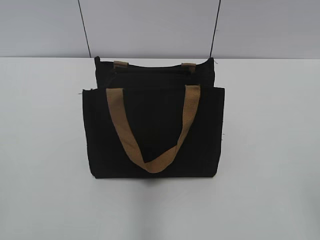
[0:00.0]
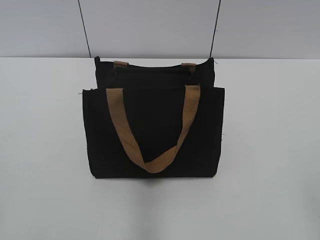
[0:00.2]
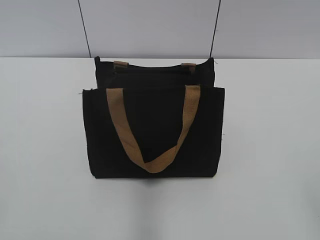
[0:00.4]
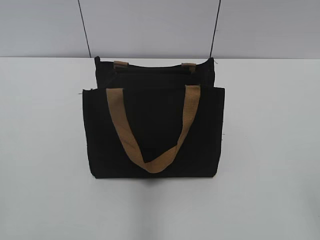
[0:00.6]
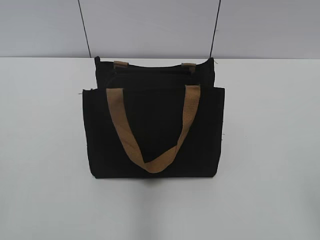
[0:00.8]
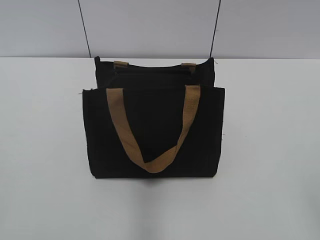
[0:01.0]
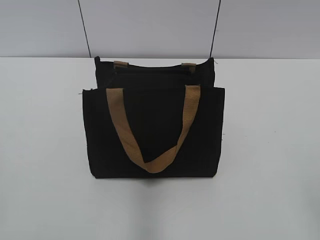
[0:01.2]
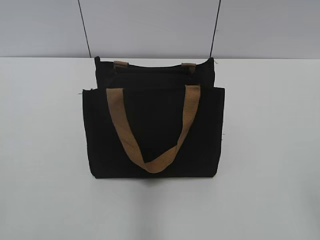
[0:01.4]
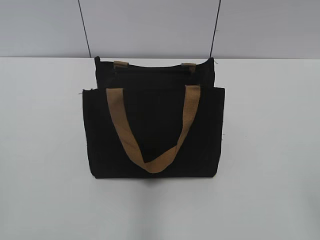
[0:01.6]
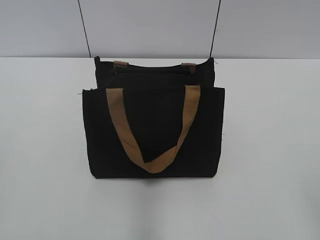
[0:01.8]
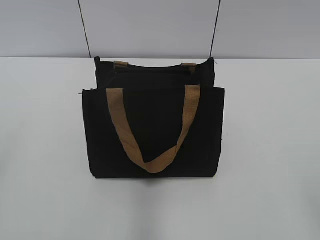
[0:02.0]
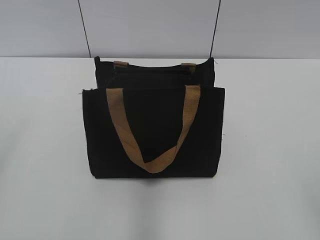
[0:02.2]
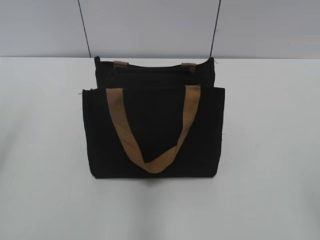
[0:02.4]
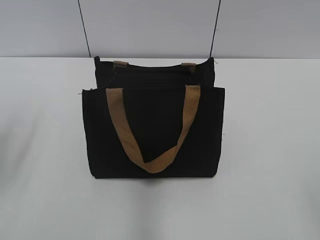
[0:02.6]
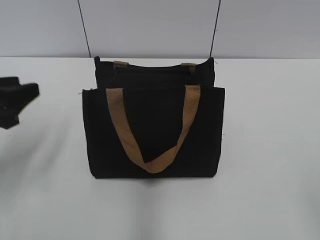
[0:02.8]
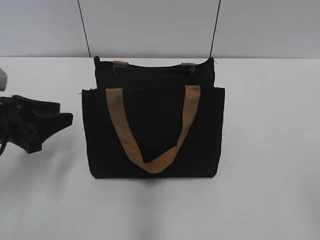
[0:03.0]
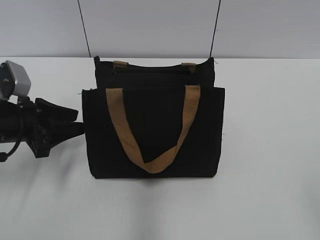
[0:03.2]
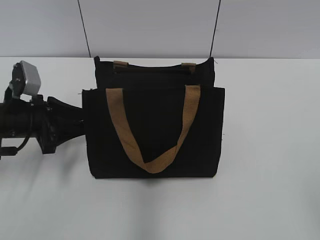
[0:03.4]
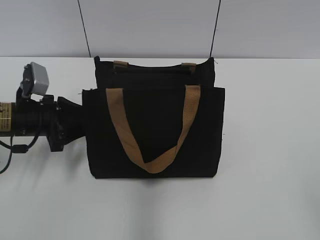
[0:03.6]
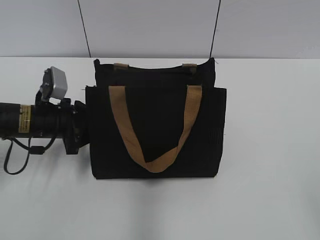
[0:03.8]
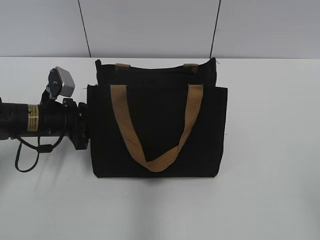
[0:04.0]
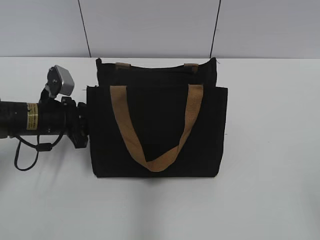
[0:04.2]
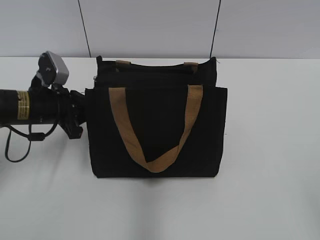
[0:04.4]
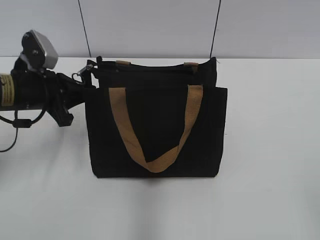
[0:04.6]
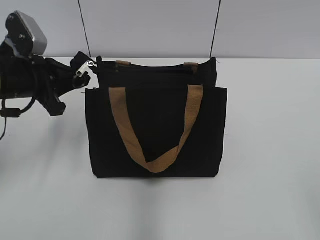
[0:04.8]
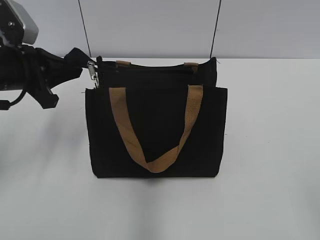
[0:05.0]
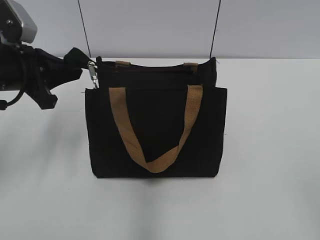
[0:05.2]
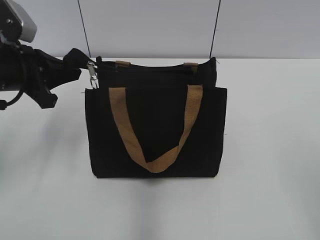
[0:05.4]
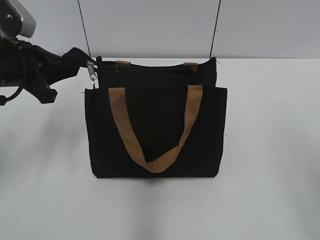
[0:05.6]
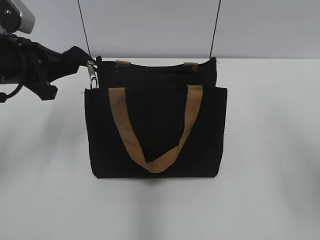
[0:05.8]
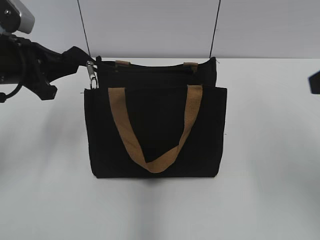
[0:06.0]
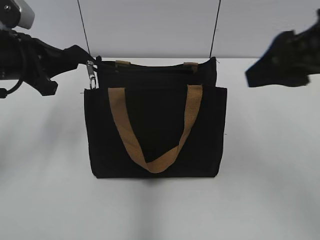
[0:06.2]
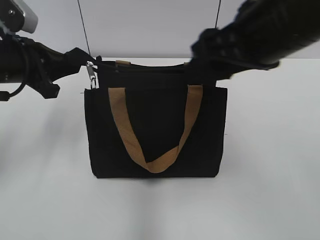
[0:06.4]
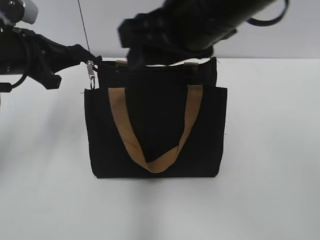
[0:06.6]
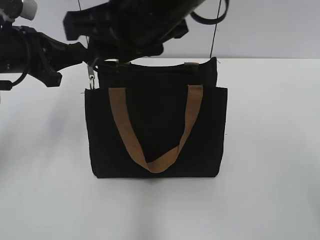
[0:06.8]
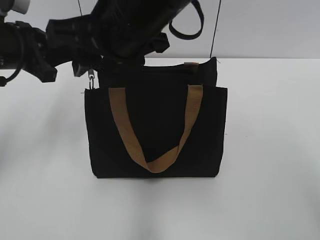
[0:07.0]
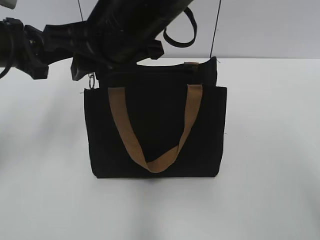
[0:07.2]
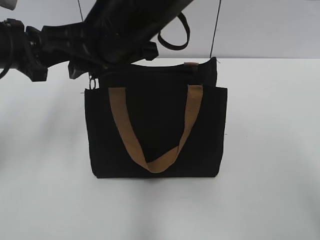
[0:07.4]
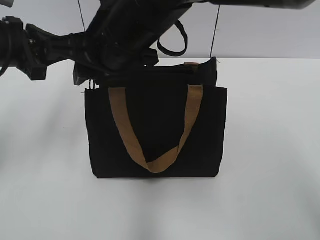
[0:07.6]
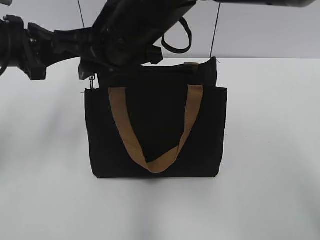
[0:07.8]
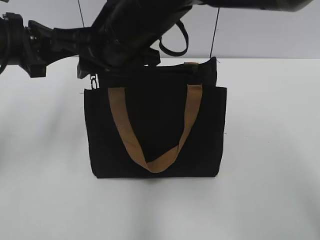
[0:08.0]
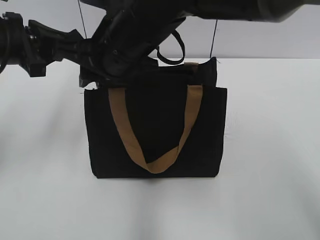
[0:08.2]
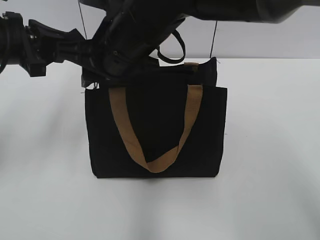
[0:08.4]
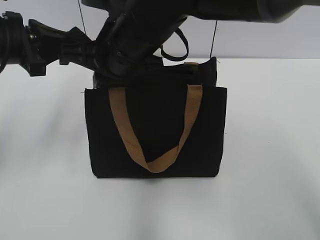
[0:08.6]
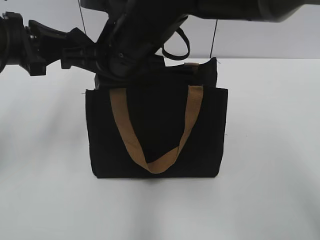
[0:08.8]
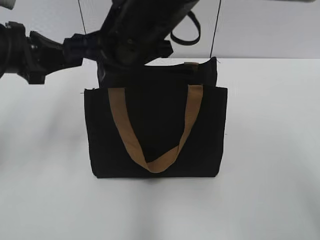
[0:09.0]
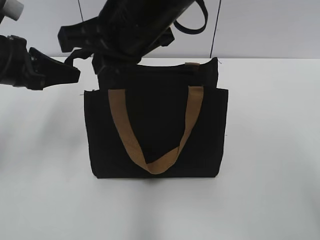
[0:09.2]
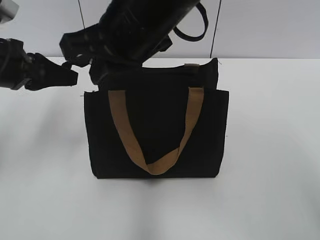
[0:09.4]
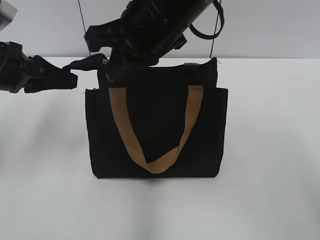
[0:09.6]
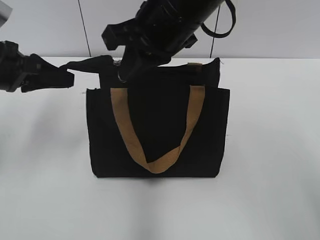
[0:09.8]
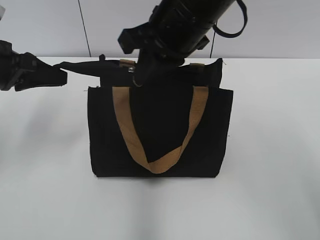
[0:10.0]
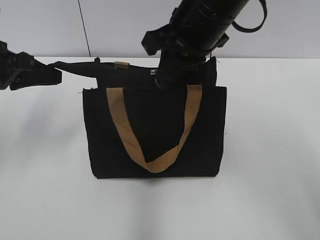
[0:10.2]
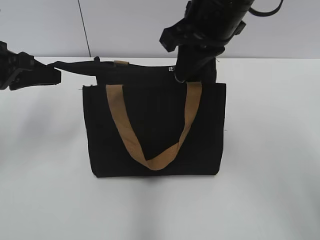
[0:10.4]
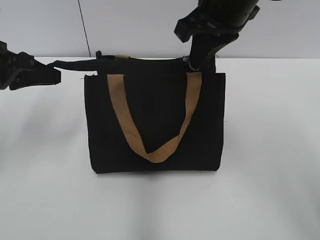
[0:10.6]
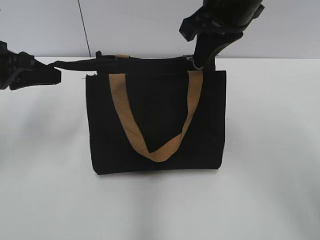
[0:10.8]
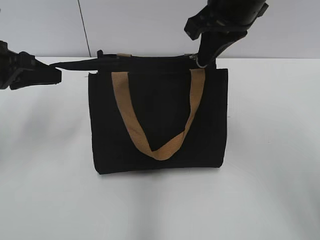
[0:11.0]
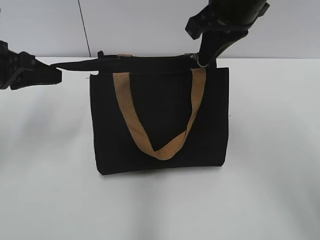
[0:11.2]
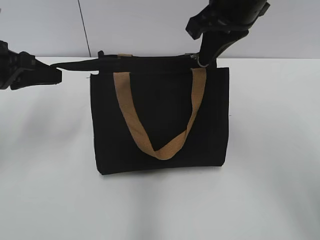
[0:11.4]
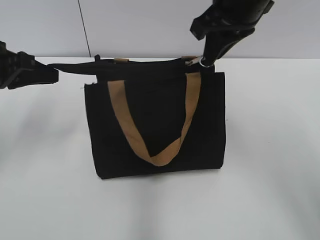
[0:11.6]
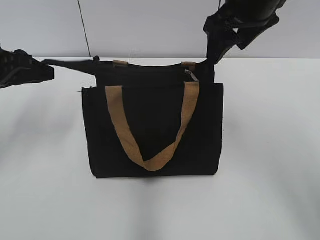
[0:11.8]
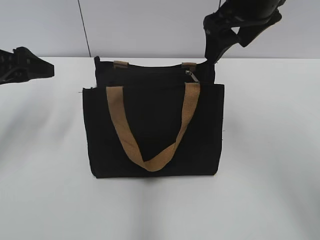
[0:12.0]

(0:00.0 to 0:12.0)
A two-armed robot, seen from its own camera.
Step, 0:00.0 - 0:11.6: Zip up the bag with your right hand.
0:01.6 - 0:03.0: The left gripper shifts about 30 cm forward and downward, and opens, then closes once more.
0:03.0 - 0:04.4: The left gripper goes approximately 10 cm forward and to the right, and closes its fingers.
0:04.4 - 0:06.0: The right gripper travels forward by about 20 cm. Meanwhile the left gripper travels upward by some 10 cm.
0:06.0 - 0:07.6: The right gripper travels to the left by about 30 cm, and closes up.
0:07.6 - 0:09.0: The right gripper closes its fingers.
0:09.0 - 0:10.4: The right gripper travels to the right by about 10 cm.
0:10.4 - 0:12.0: The right gripper is displaced to the right by about 5 cm, and opens. The left gripper opens its fingers.

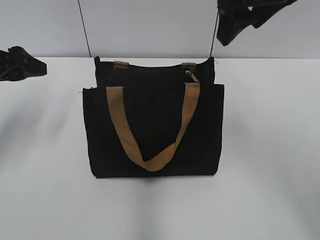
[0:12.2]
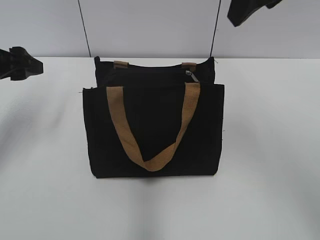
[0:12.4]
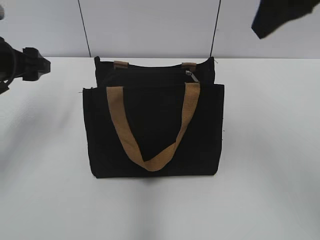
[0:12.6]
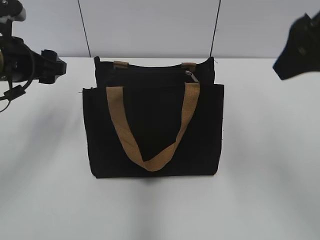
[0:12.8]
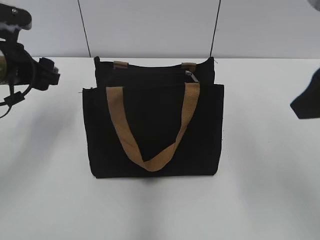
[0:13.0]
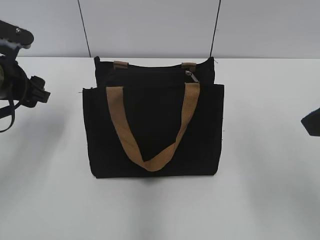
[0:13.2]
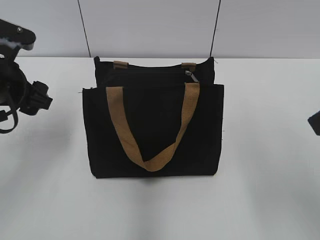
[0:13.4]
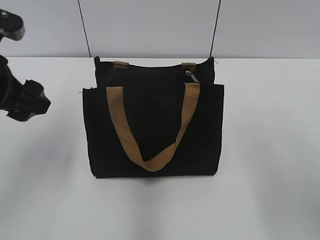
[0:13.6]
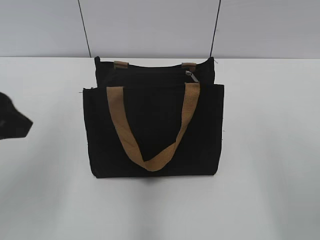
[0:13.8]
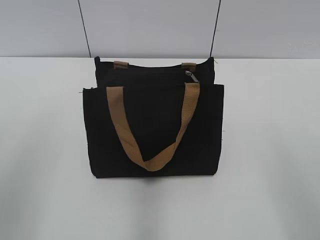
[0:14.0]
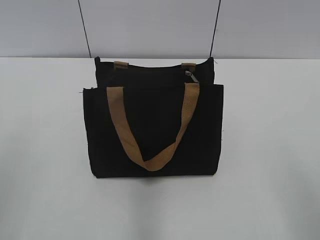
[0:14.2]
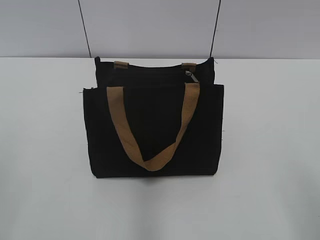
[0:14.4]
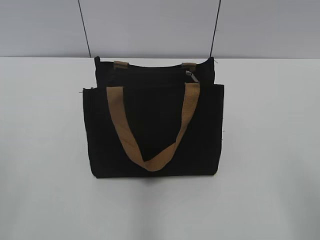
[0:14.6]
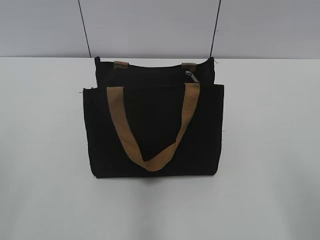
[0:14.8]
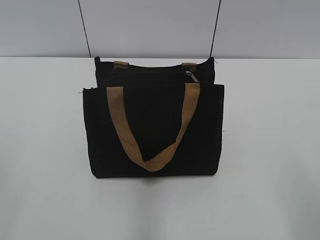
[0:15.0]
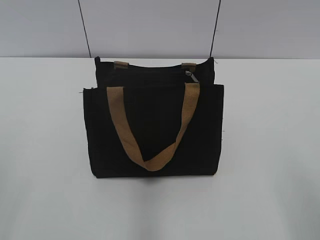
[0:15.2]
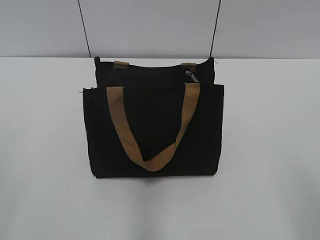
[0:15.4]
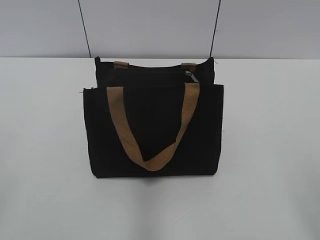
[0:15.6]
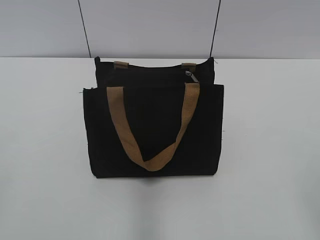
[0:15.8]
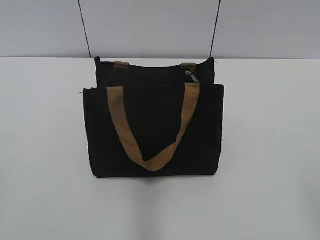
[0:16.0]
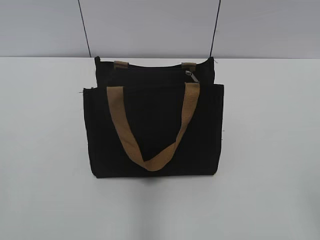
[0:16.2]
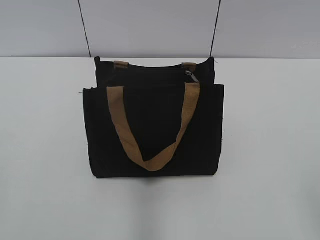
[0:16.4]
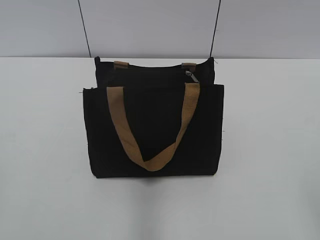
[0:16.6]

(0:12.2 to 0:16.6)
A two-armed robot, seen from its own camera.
0:12.2 - 0:13.6: The left gripper heads to the right and backward, covering about 10 cm, while the right gripper heads backward and to the right, covering about 20 cm.
0:13.6 - 0:15.2: The left gripper heads backward, covering about 20 cm.

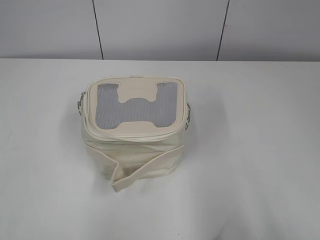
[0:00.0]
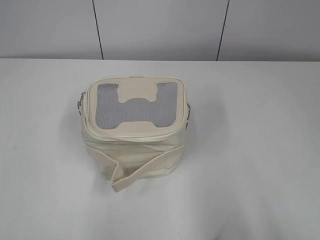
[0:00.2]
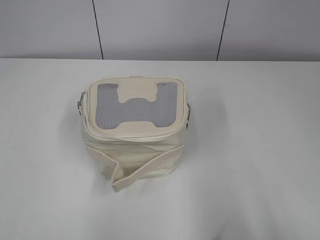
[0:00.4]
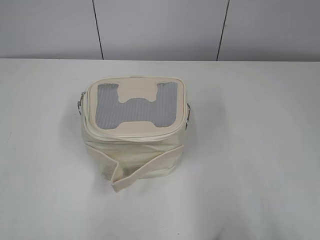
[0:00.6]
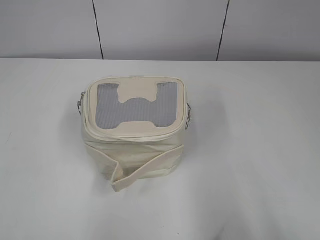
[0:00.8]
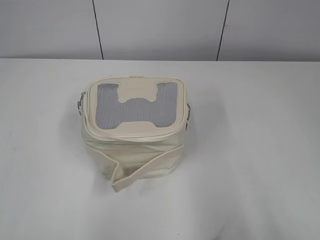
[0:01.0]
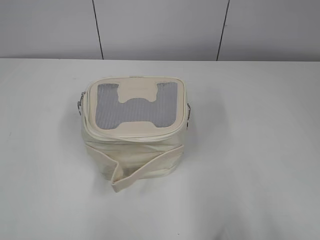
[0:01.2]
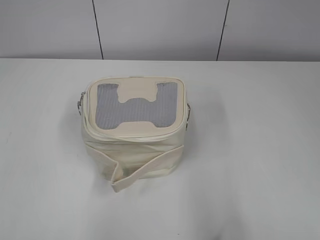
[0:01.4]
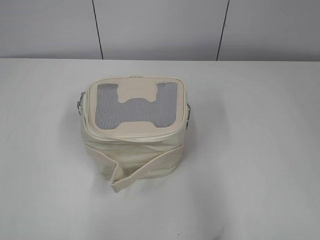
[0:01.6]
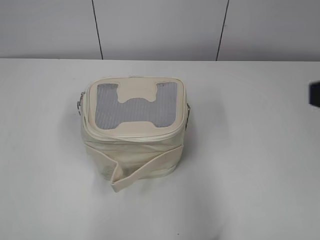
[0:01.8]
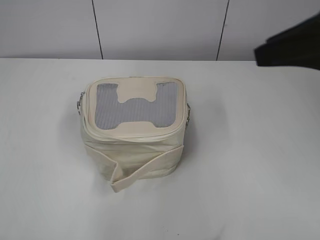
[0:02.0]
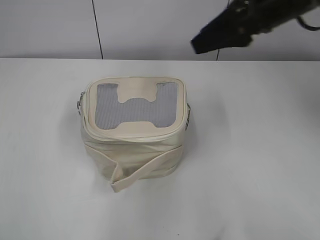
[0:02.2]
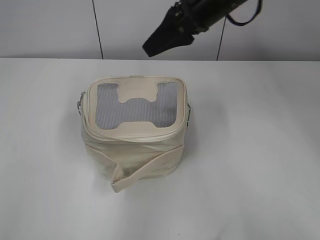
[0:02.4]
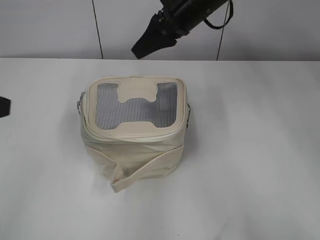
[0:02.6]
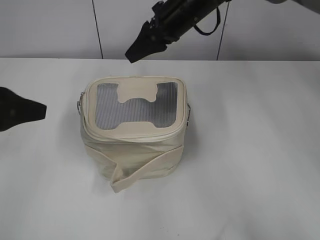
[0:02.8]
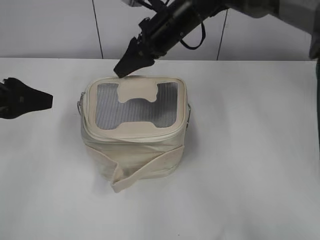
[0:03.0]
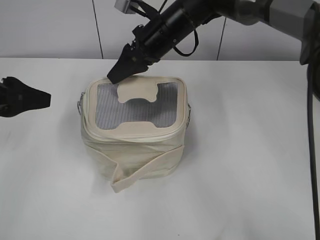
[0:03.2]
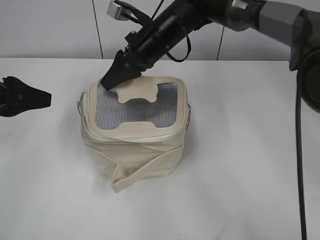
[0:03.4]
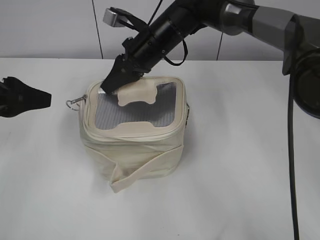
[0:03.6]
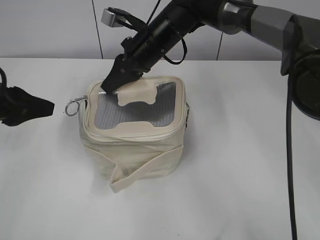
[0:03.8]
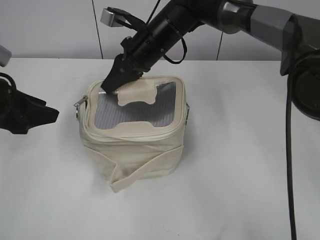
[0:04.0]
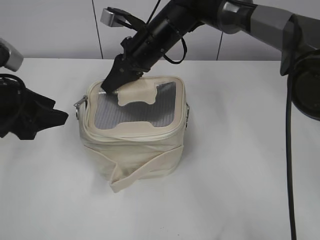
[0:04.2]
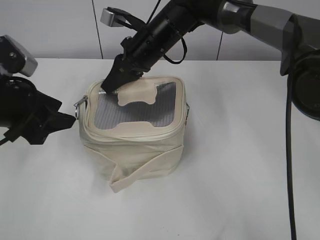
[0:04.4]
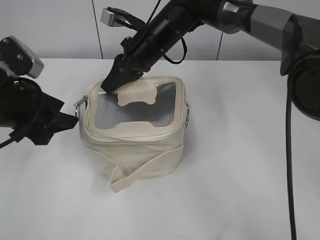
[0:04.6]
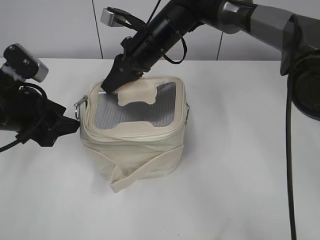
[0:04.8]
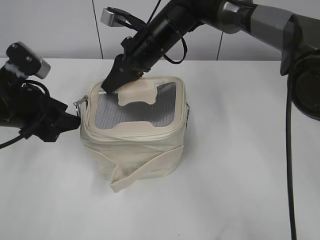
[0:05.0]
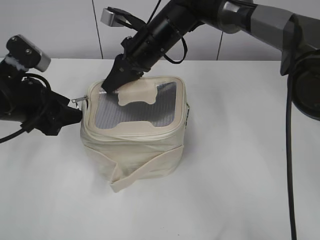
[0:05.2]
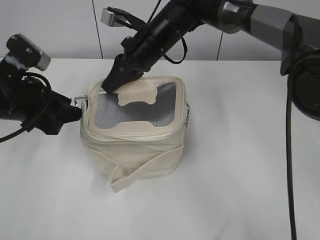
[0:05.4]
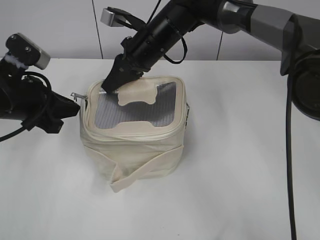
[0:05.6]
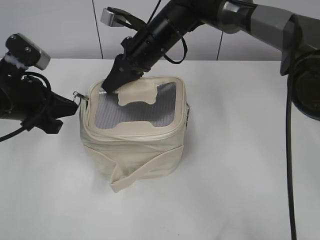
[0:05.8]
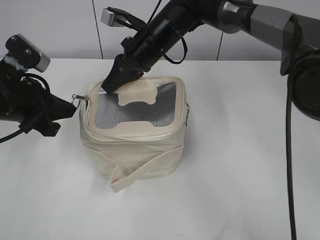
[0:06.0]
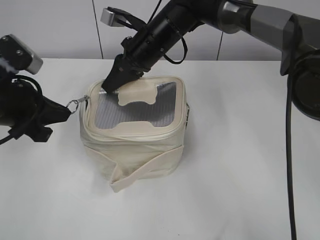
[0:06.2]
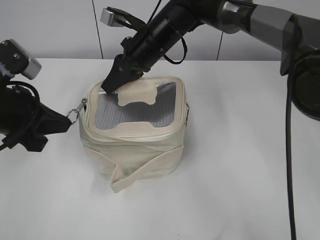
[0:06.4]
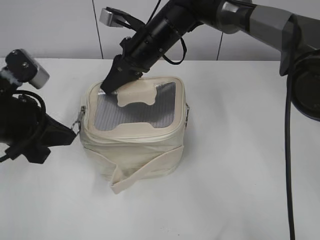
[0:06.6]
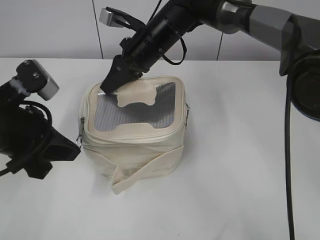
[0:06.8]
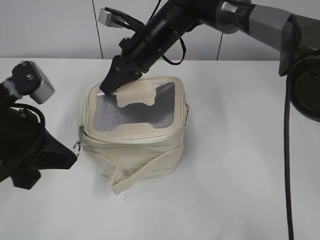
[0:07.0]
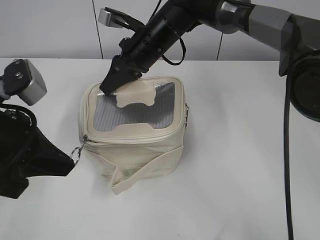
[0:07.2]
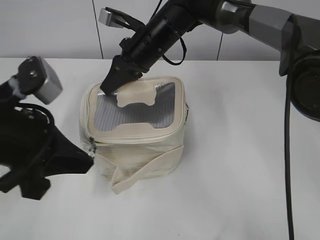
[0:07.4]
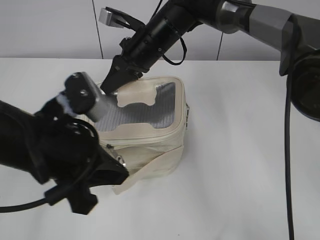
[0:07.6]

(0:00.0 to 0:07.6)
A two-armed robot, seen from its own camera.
0:01.6 - 0:03.0: The right gripper goes roughly 50 cm forward and to the left. Meanwhile the left gripper travels forward by about 25 cm.
0:03.0 - 0:04.6: The left gripper ends up approximately 5 cm from where it was; the right gripper ends up some 5 cm from where it was, and closes its fingers.
0:04.6 - 0:06.0: The left gripper closes its fingers.
0:06.0 - 0:07.6: The left gripper goes some 10 cm backward and to the right.
